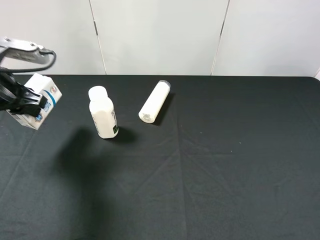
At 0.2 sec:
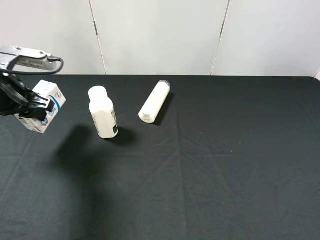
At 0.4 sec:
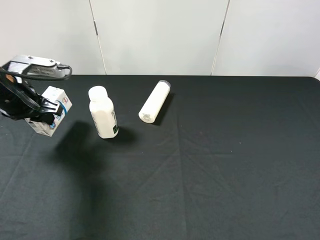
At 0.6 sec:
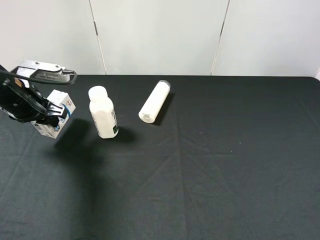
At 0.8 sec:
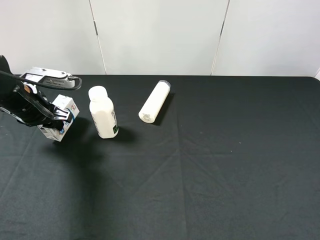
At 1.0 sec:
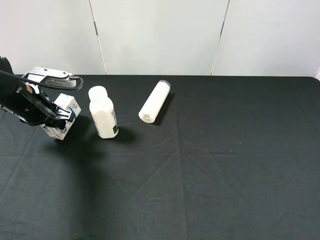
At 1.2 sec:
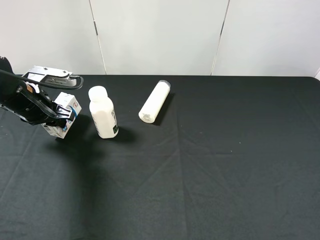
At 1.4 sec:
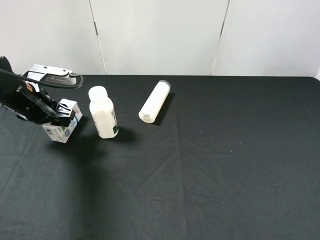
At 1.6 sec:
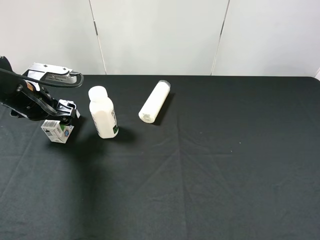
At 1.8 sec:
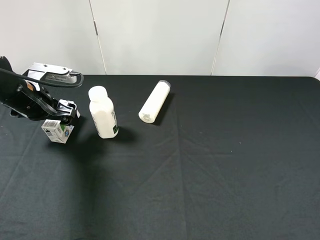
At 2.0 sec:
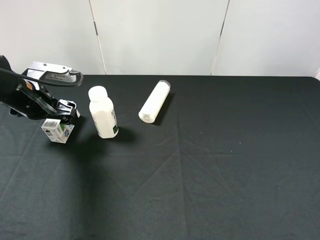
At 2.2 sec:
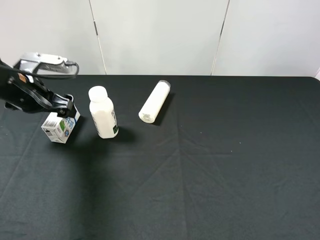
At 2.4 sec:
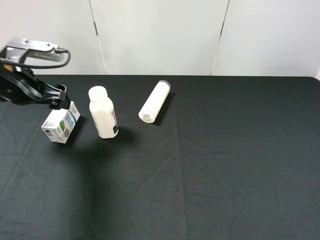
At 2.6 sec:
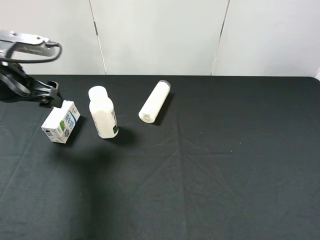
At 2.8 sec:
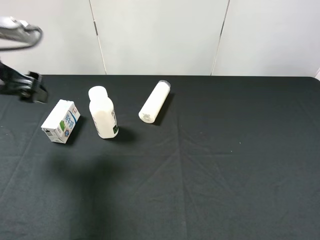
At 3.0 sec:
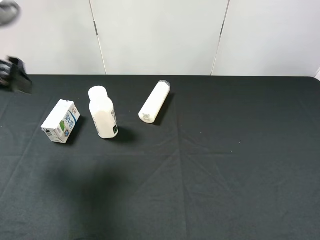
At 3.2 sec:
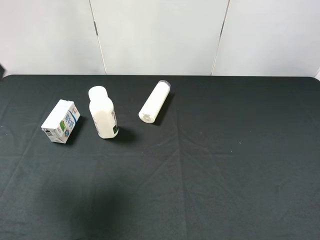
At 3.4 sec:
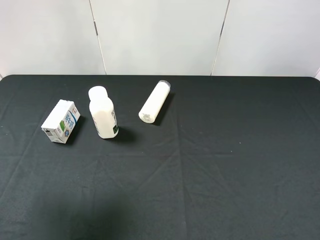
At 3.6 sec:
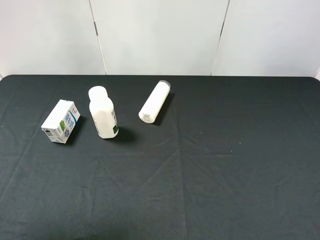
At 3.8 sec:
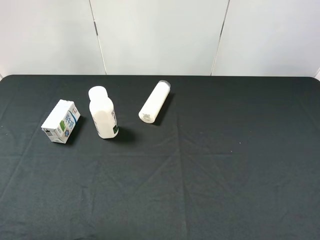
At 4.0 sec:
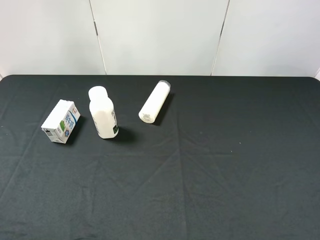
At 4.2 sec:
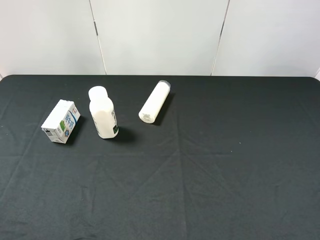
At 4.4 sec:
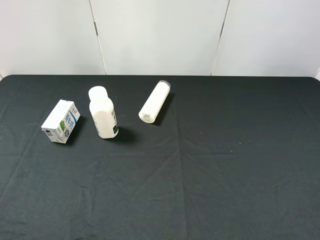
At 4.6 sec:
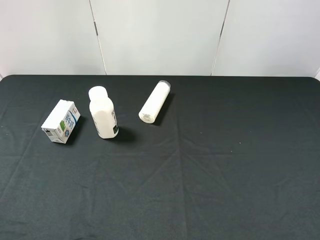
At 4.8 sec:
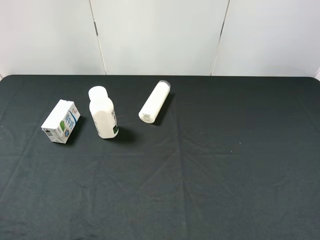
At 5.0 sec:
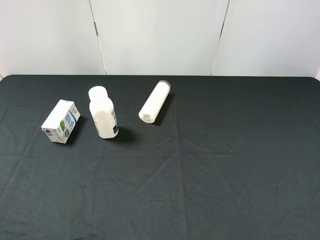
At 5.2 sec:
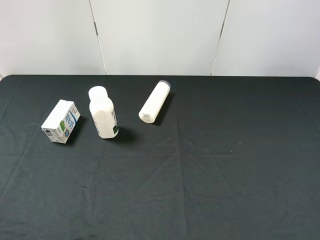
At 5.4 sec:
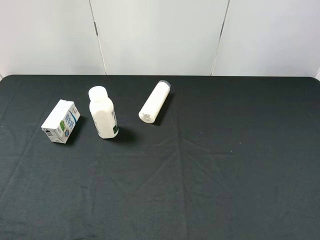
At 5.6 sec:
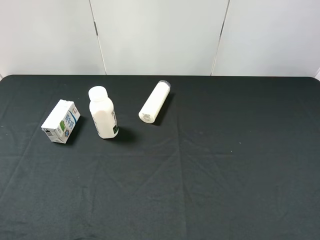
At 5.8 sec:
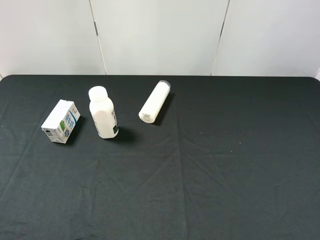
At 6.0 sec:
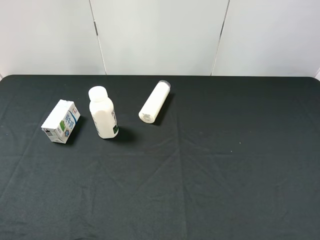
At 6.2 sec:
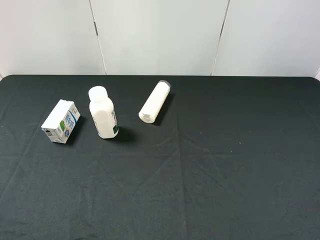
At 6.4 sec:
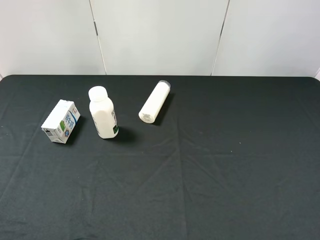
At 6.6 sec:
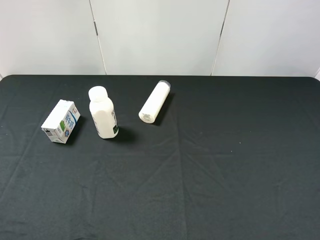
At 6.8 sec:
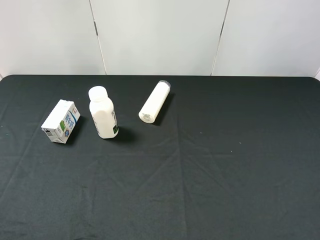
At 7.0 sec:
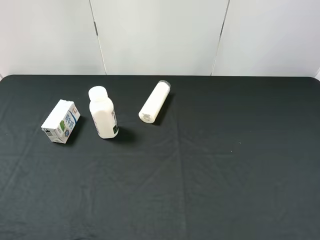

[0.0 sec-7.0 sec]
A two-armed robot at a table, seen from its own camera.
Task of the whole recording: use the right gripper to pick up the item and transfer it from the right gripper to the left gripper.
0.0 sec to 1.4 sec: The left gripper travels downward by about 5 cm, and opens.
1.4 sec to 2.8 sec: The left gripper shifts approximately 15 cm upward and backward, and opens up.
2.8 sec to 4.2 sec: The left gripper travels backward by approximately 20 cm.
5.6 sec to 7.0 sec: Both grippers stay about where they are.
